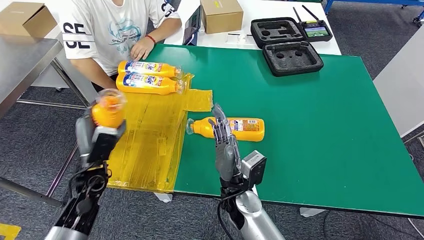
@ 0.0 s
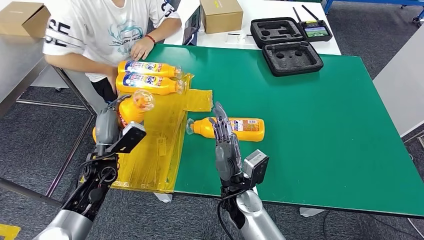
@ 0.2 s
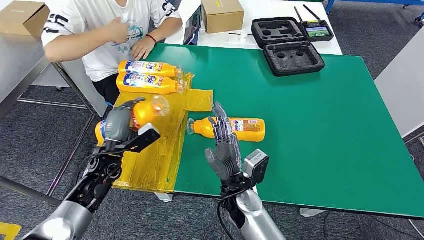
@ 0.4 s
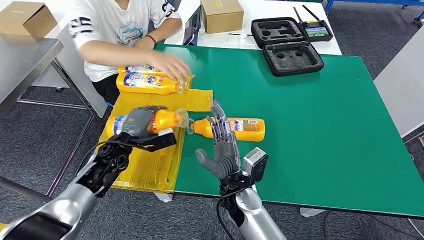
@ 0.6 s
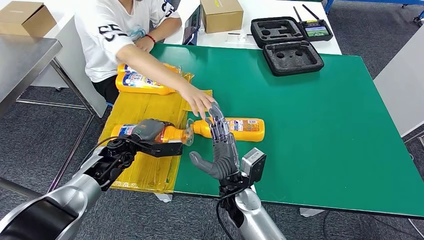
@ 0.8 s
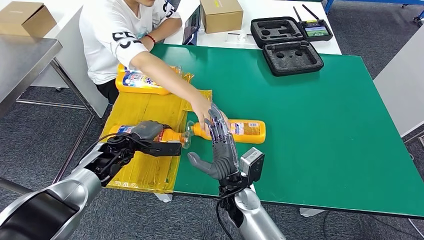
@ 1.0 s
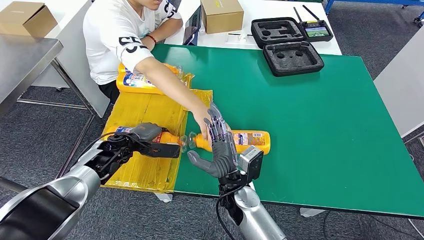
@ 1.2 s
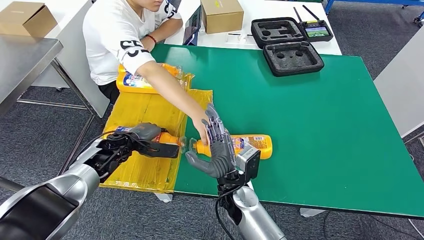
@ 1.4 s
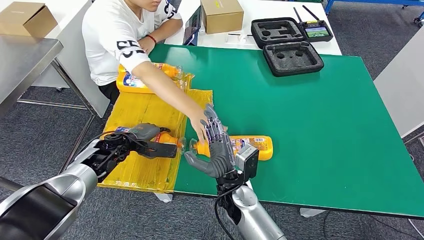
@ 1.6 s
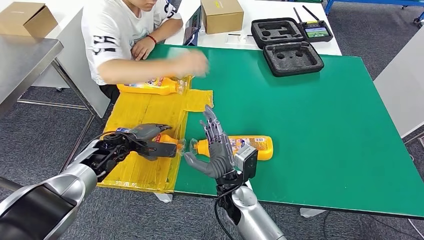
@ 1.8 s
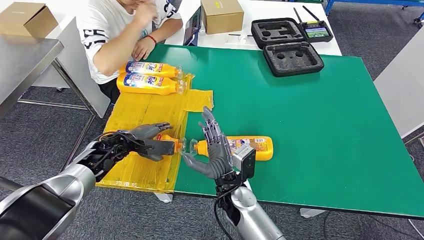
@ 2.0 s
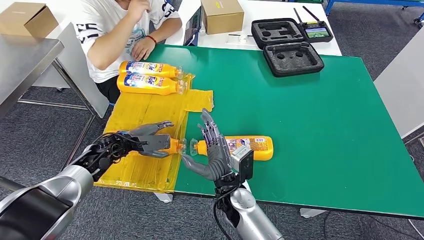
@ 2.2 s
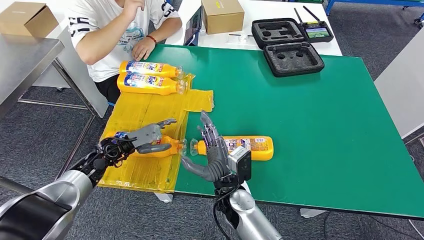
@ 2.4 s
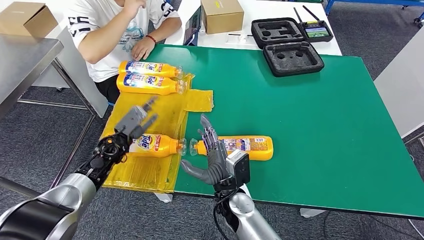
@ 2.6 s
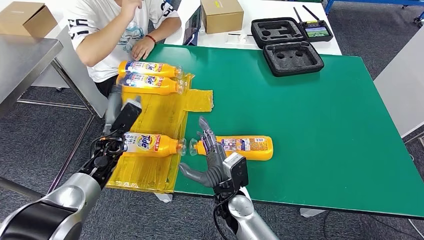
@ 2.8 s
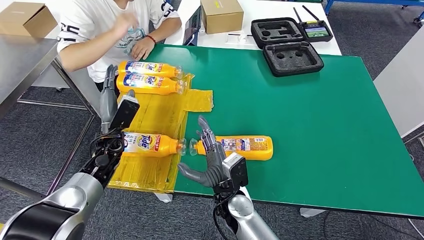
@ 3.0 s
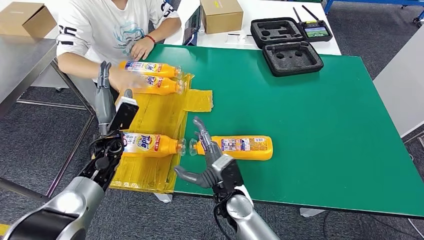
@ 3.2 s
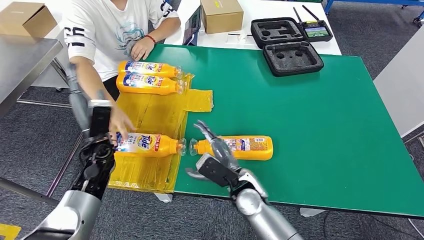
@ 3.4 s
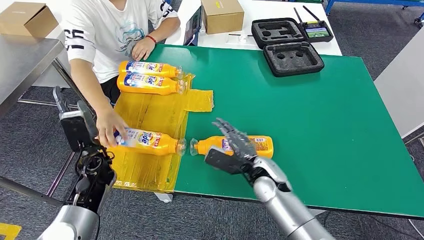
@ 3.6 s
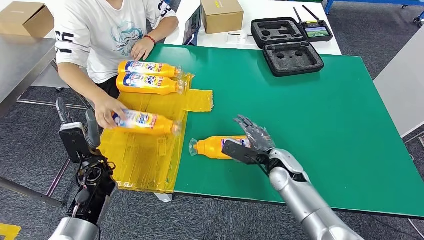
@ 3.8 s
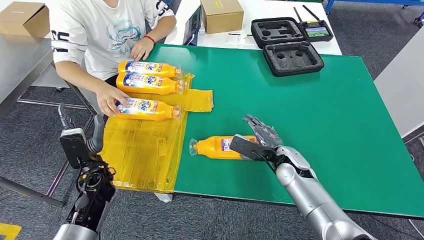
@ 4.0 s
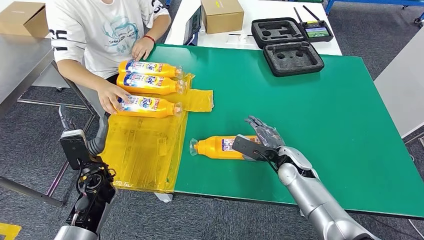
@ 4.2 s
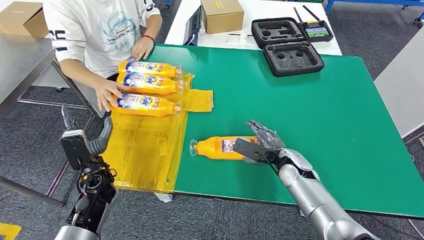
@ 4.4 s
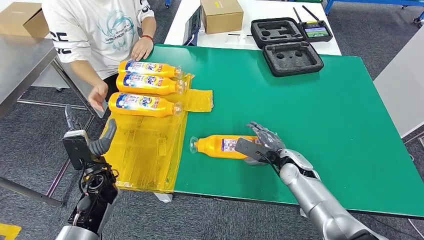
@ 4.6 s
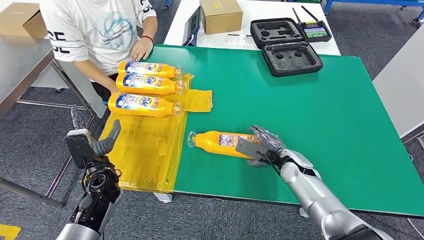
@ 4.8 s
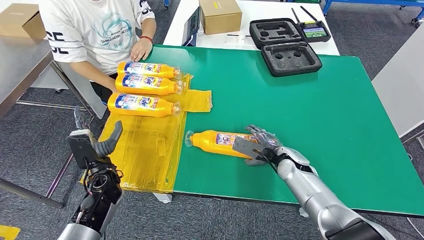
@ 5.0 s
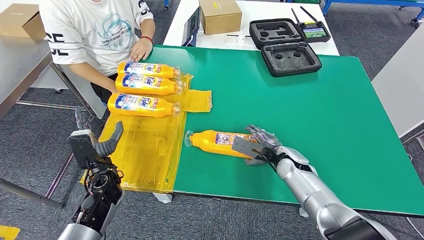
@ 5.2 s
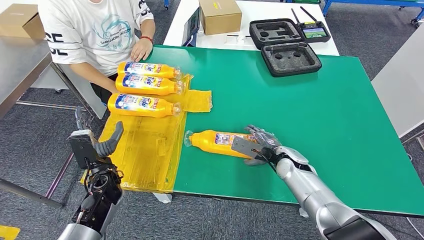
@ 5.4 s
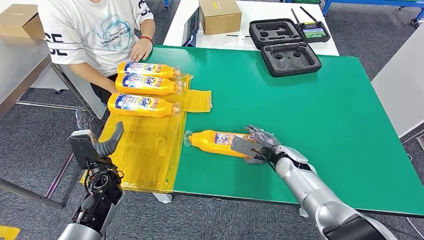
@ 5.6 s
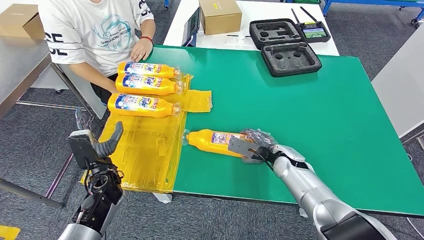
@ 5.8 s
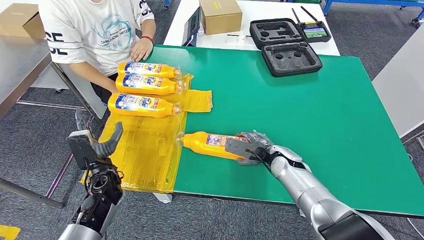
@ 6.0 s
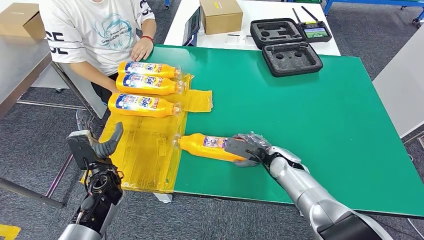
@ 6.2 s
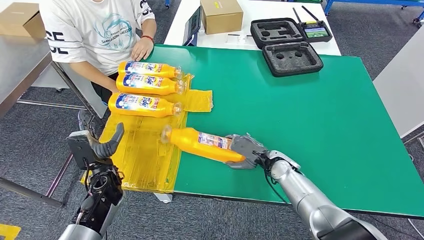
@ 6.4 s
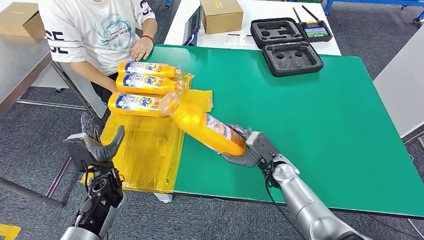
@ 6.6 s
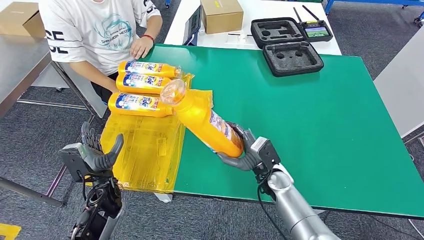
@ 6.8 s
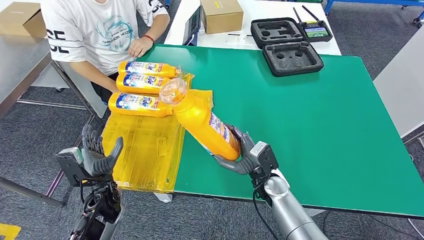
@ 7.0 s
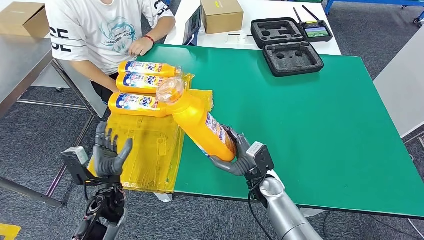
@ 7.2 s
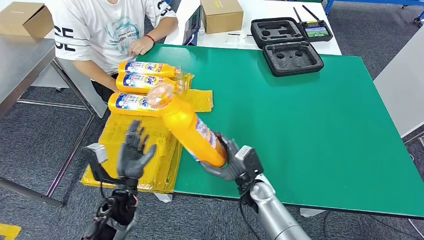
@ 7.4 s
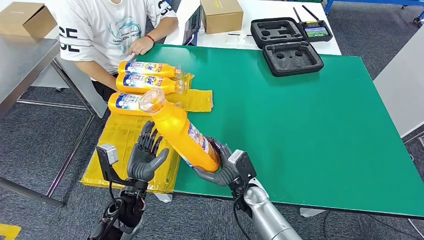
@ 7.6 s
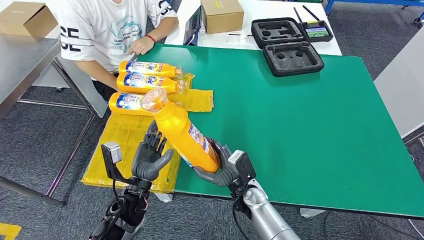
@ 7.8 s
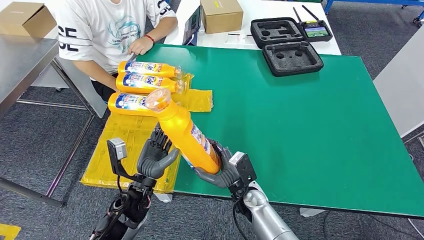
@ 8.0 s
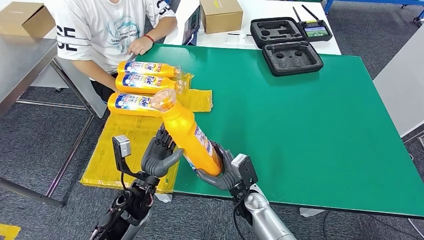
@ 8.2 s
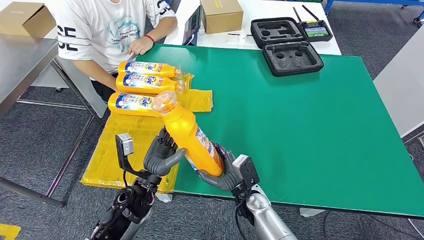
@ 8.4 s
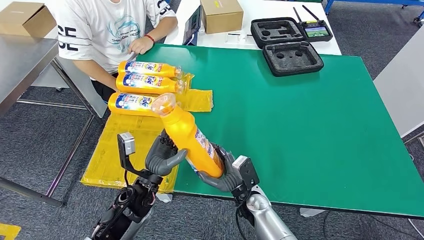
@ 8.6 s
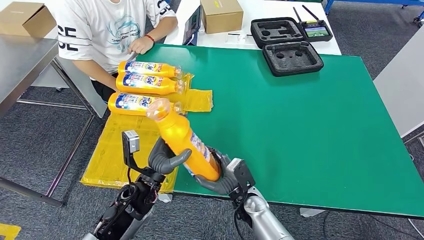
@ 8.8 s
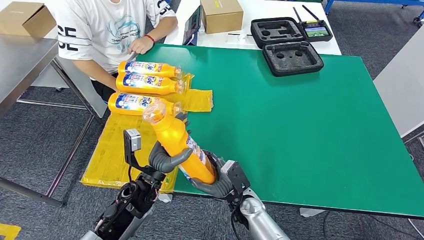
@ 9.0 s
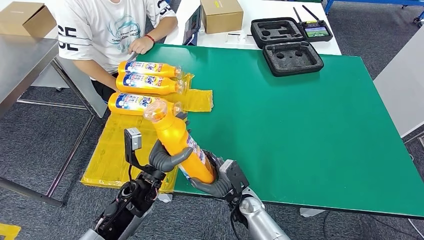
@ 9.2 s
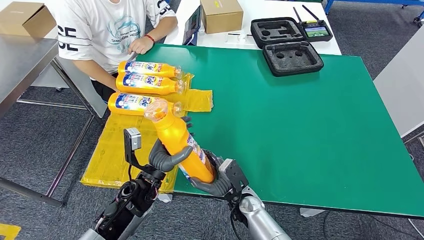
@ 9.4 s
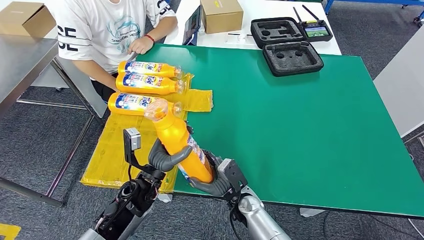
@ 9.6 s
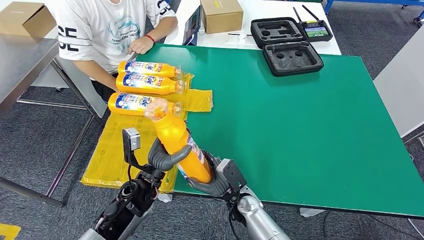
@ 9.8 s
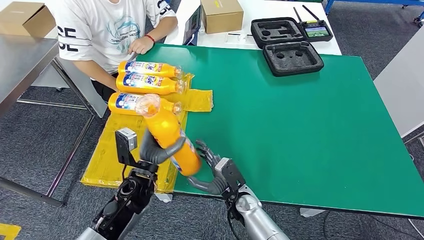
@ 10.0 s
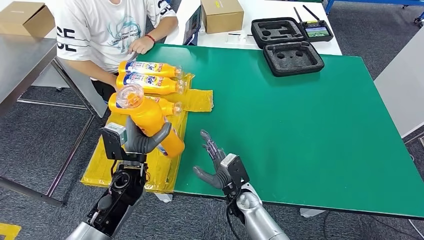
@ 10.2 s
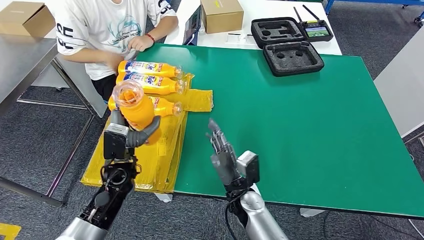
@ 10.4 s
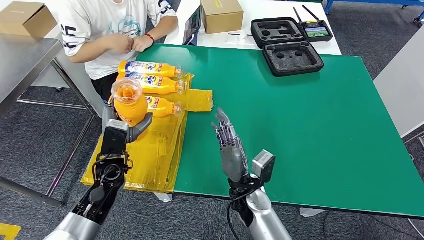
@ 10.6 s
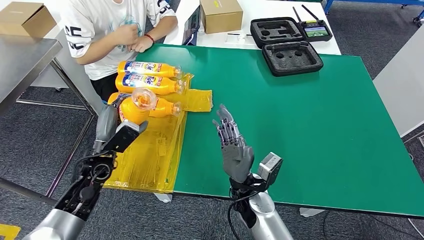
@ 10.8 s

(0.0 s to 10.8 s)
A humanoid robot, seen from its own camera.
Step, 0.0 s - 2.6 s: Flip the fast-moving consumer goods bottle to the front side.
Step, 2.8 s - 8.8 s: Pick up the fast-moving consumer goods bottle from the table.
4.6 s - 6.2 s: The hands stay close to where they were, moving slightly.
7.8 s - 9.2 s: The hands stay close to where they were, moving slightly.
9.2 s - 10.8 s: The left hand goes about 15 cm to the left. Meanwhile the right hand goes some 10 cm upward.

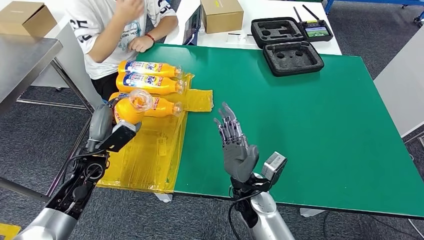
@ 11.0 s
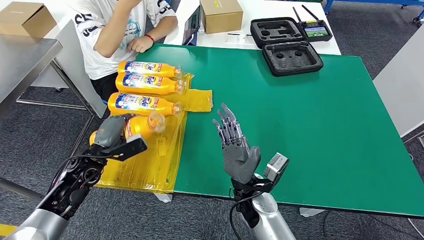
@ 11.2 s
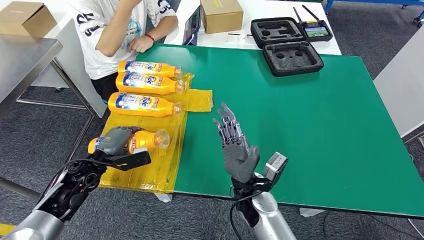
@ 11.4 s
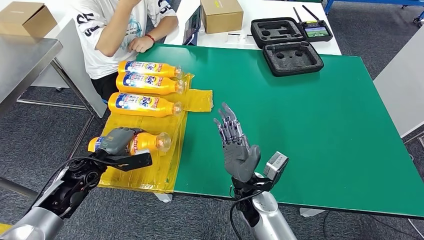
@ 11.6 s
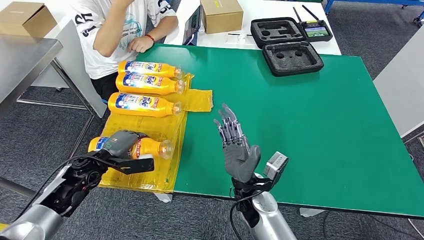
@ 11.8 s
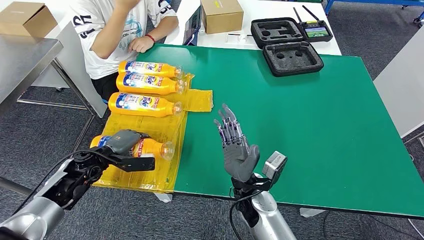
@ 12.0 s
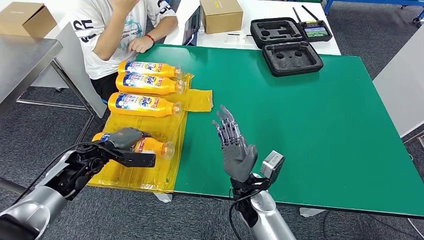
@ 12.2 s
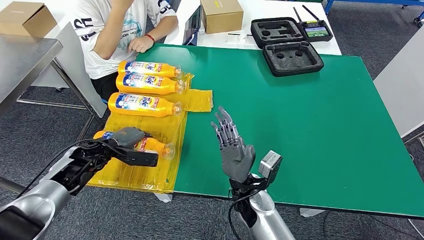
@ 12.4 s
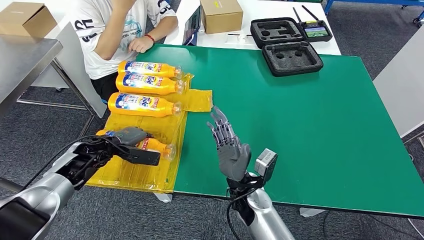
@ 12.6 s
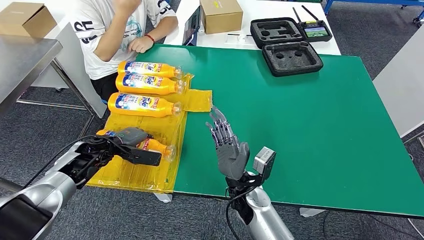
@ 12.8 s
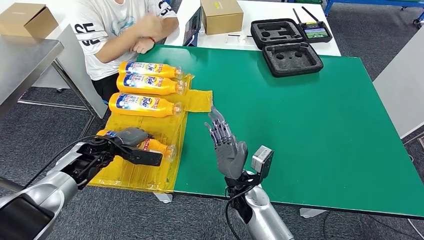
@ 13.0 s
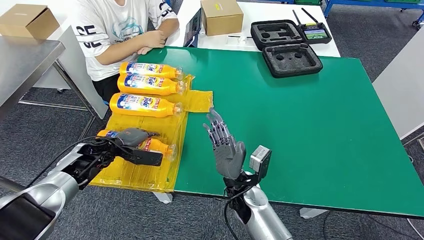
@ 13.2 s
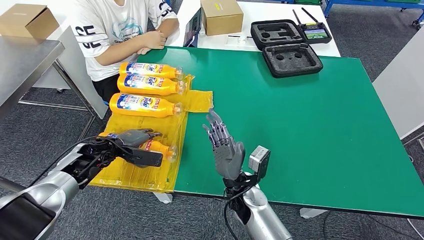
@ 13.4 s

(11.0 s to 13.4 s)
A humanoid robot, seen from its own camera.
Step, 11.0 s - 13.4 s: Flip the fast-moving consumer goods bottle to the front side.
12.2 s - 13.4 s: The hands move only a little.
